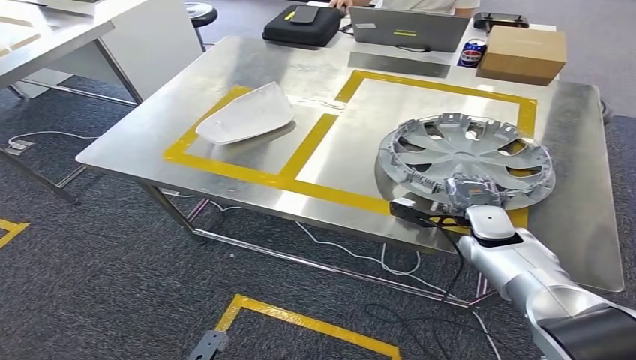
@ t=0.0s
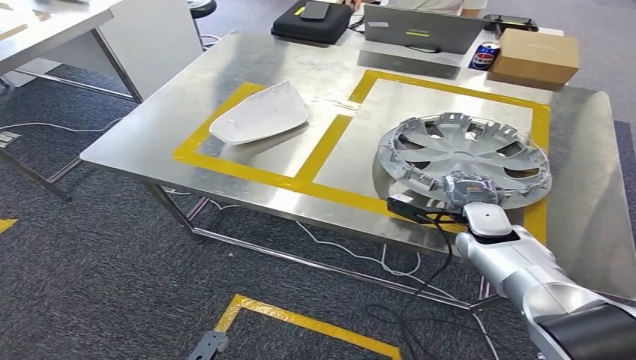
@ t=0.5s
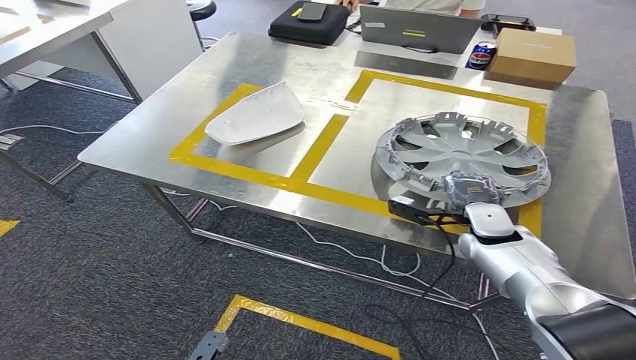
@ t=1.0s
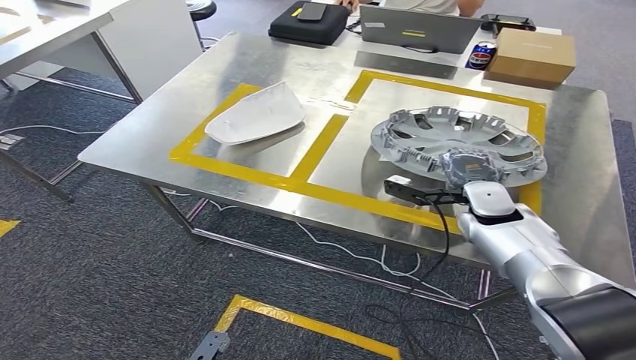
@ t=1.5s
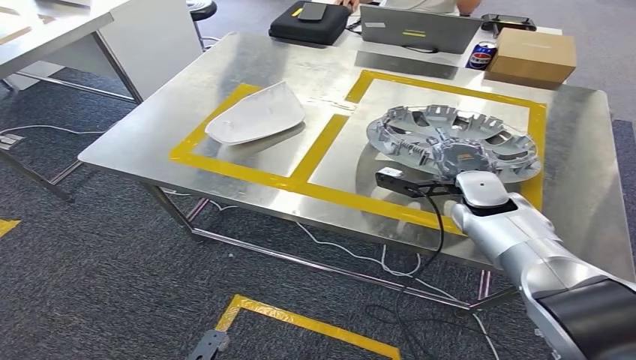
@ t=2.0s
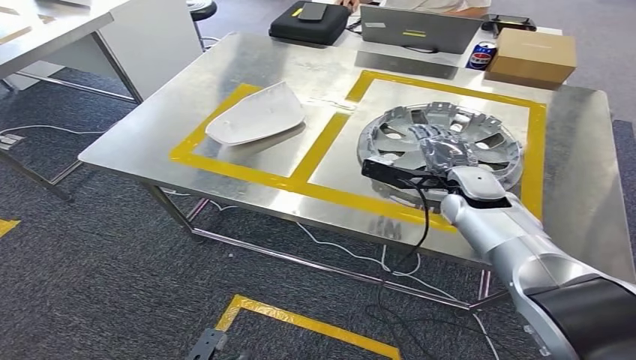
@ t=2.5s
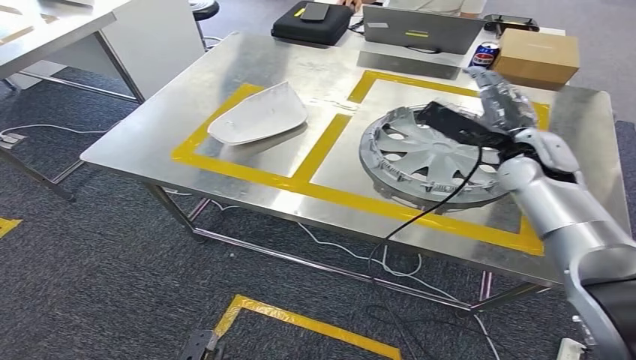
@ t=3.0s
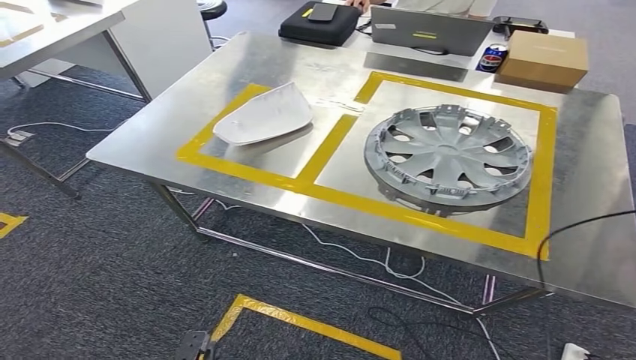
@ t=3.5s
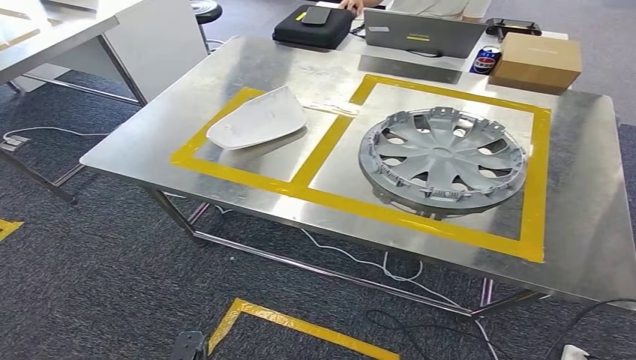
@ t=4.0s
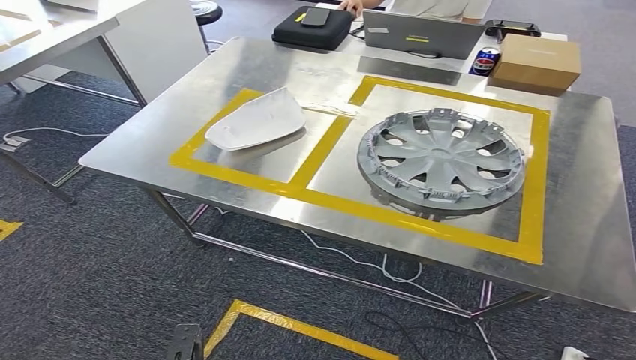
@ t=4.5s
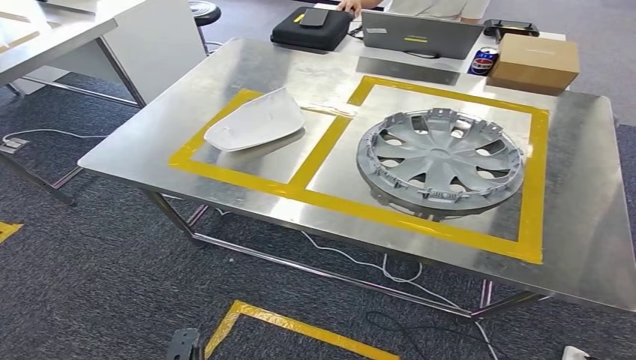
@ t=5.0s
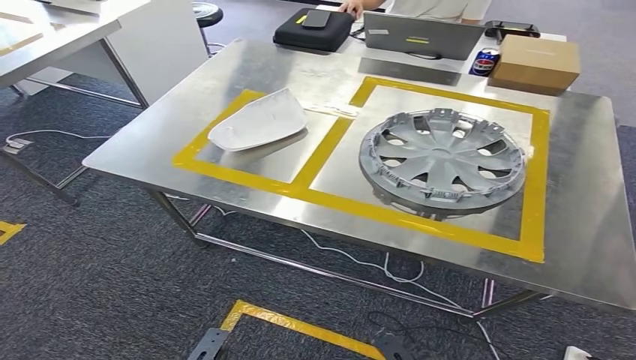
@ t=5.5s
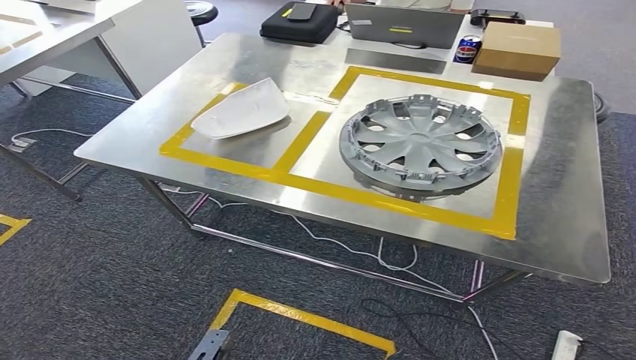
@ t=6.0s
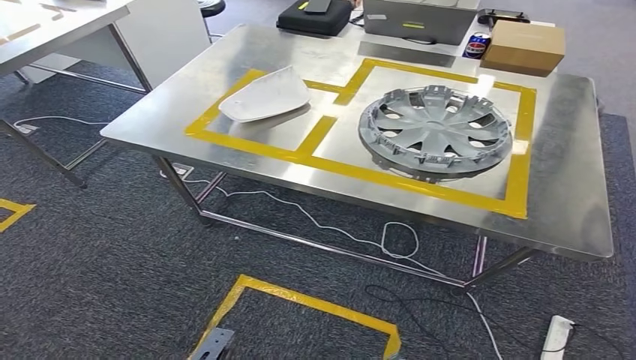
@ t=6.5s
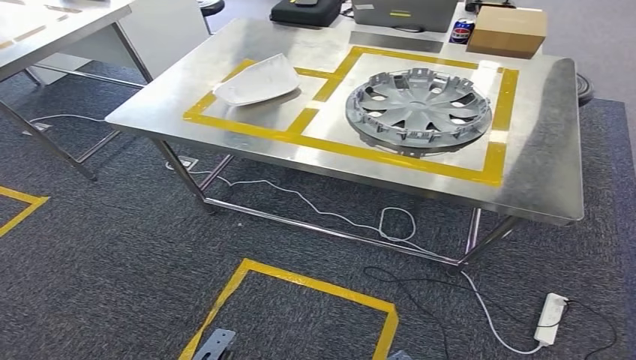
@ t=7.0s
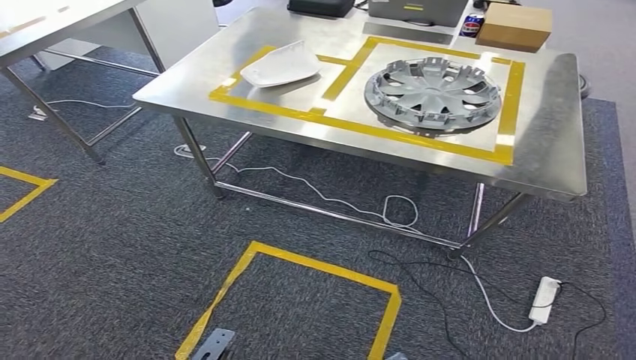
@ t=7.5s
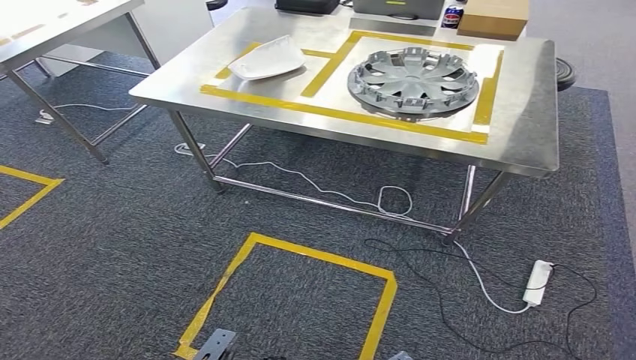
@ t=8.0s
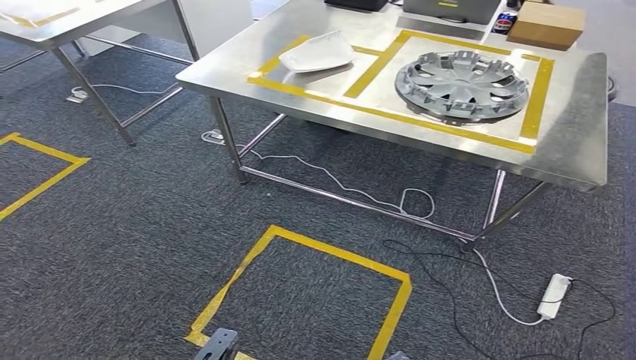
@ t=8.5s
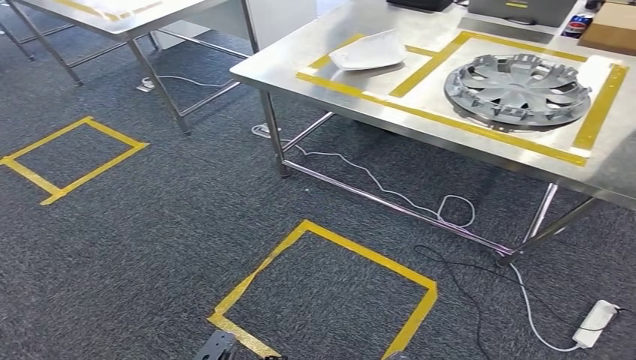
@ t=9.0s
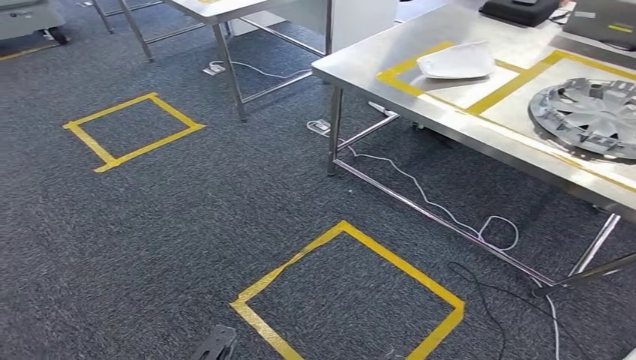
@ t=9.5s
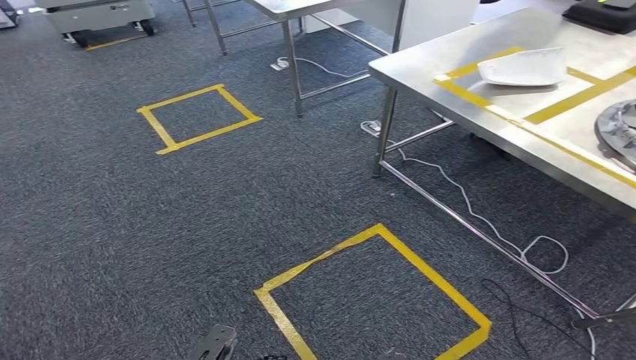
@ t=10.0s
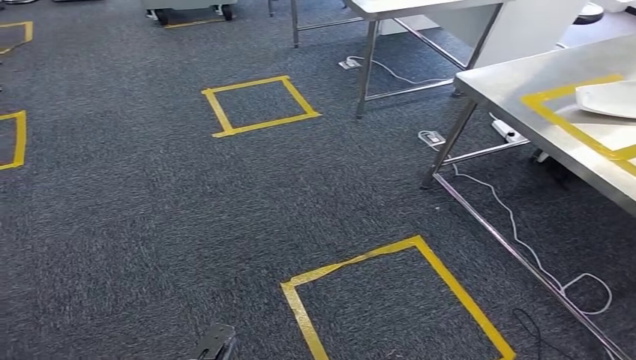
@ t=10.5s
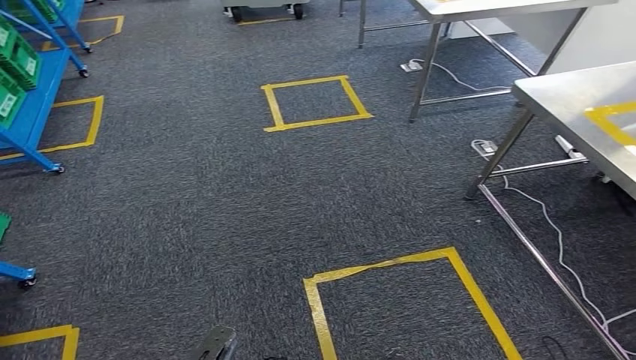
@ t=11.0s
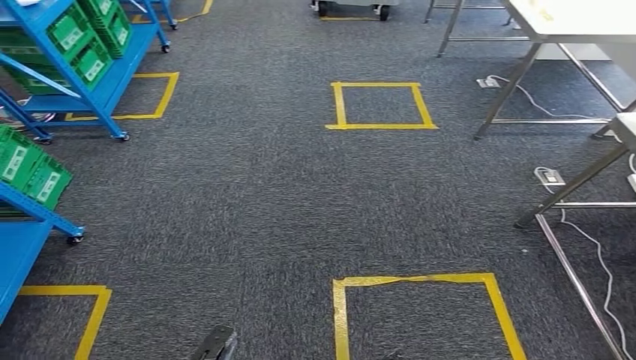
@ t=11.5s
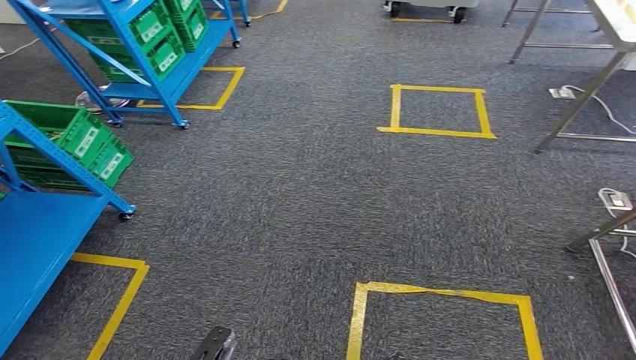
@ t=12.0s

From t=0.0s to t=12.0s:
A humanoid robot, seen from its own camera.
Step, from t=0.0s to t=3.5s: Insert the small parts into the corresponding holes on the workbench.

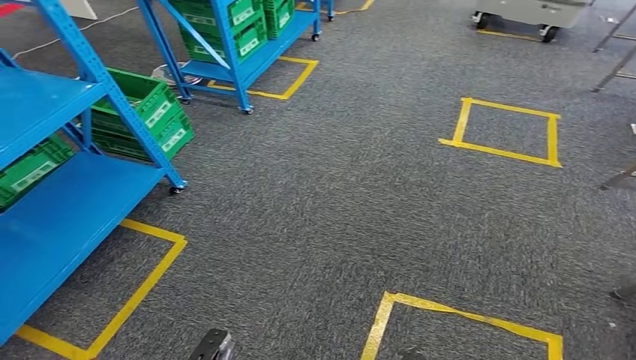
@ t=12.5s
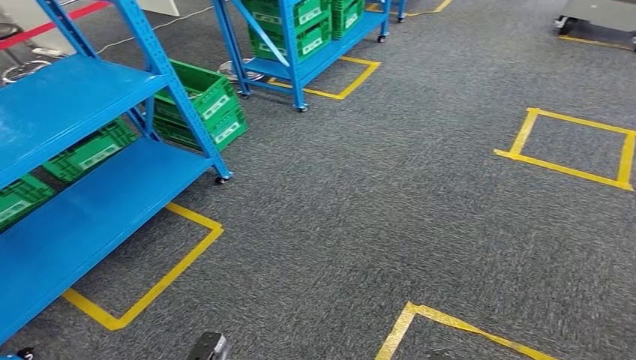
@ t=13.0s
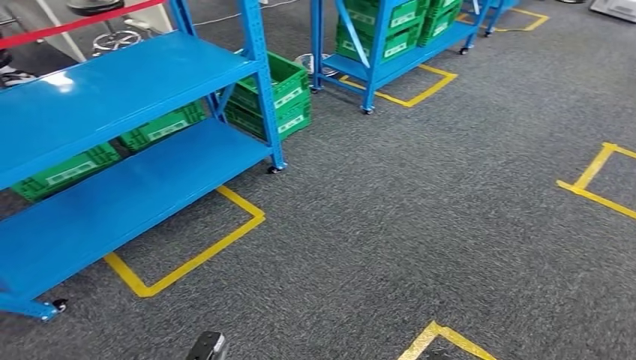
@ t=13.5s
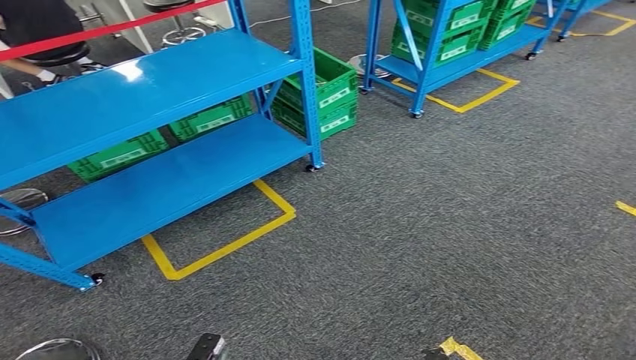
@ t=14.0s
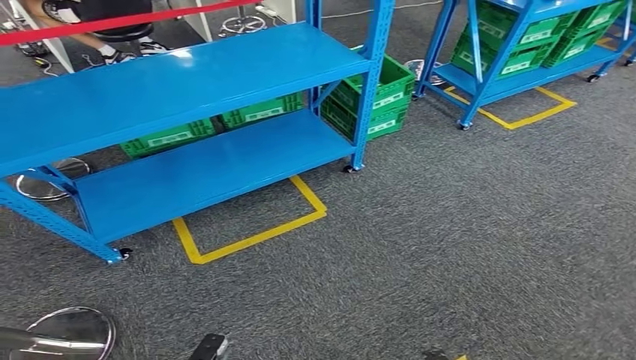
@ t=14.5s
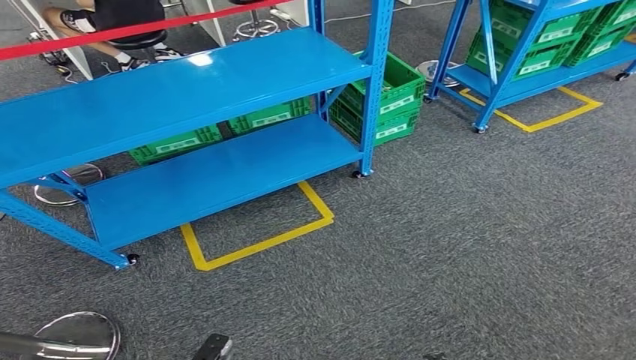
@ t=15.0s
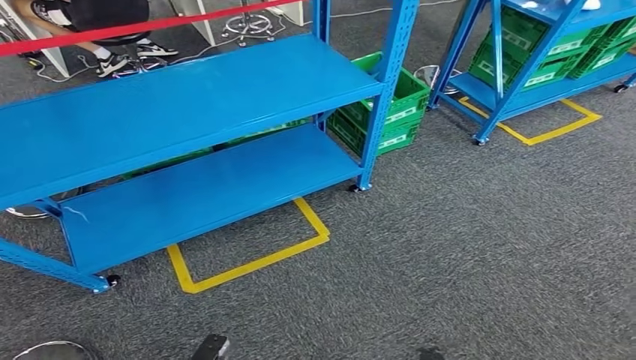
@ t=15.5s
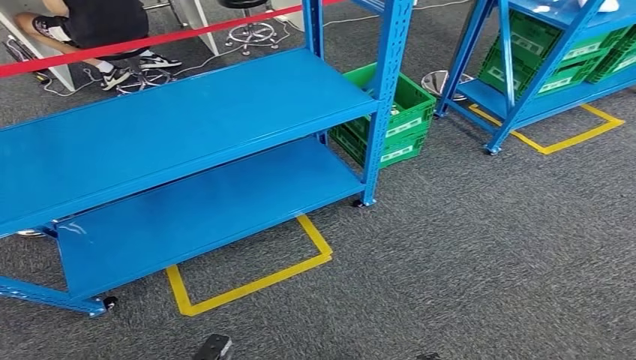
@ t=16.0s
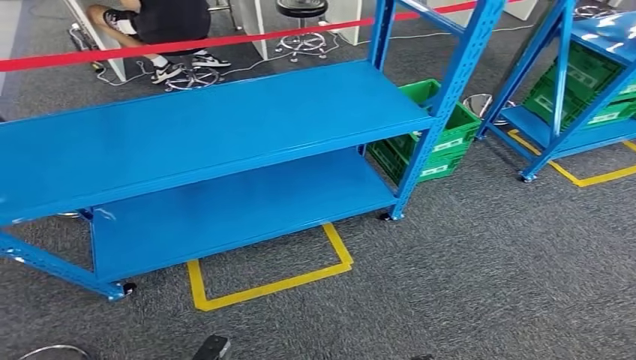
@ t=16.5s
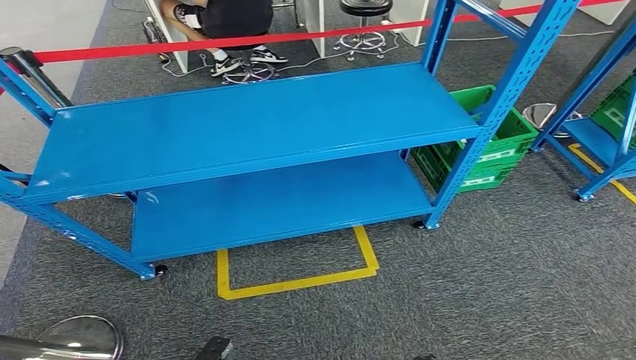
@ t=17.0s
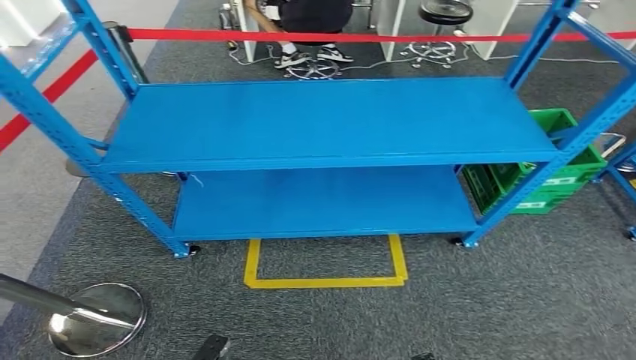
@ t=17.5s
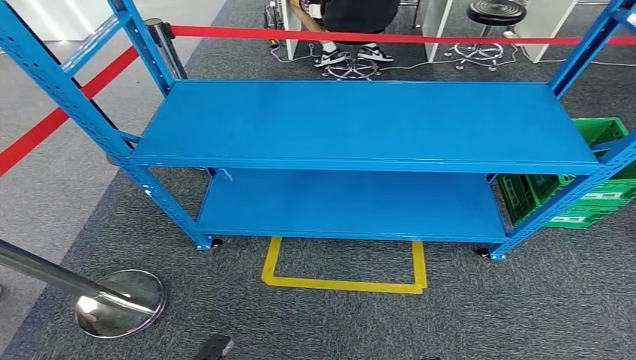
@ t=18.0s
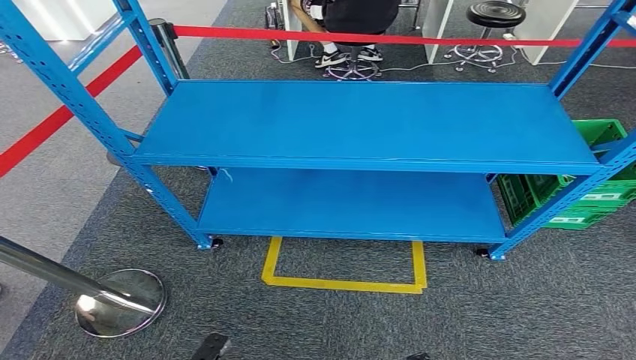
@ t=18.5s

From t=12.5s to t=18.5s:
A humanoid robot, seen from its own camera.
Step, from t=12.5s to t=18.5s: Move to the initial position of the workbench.

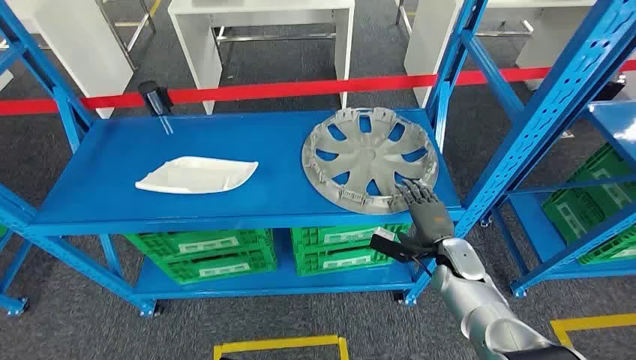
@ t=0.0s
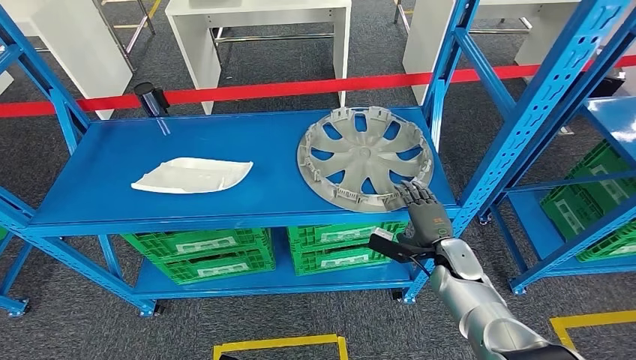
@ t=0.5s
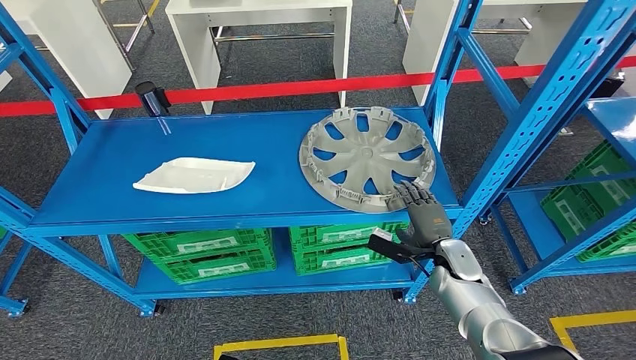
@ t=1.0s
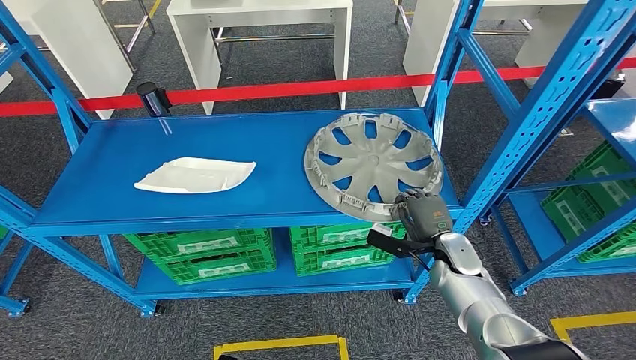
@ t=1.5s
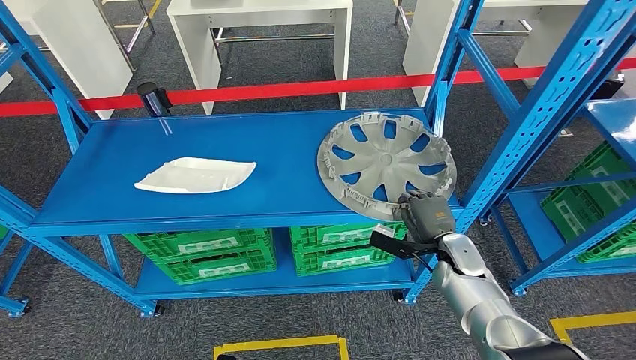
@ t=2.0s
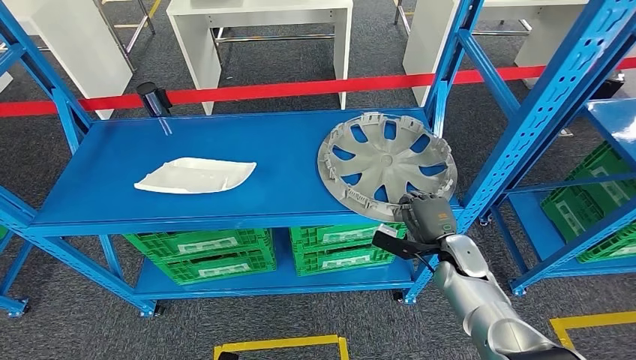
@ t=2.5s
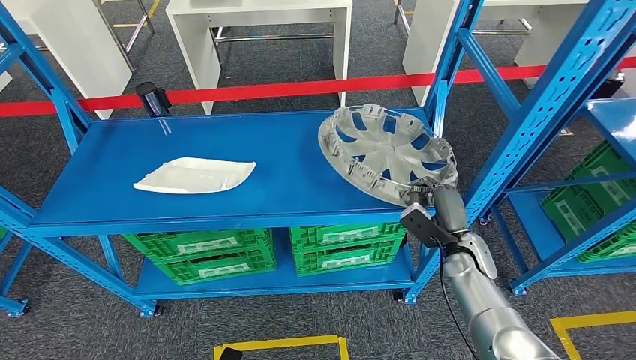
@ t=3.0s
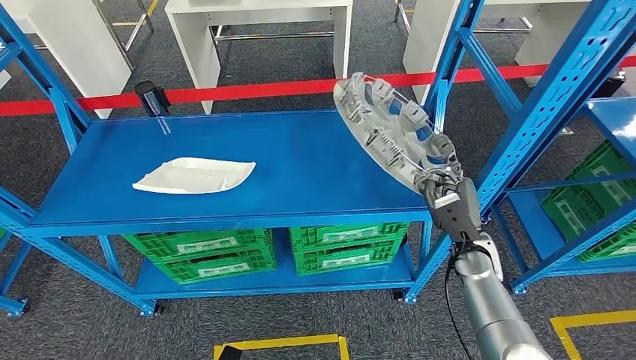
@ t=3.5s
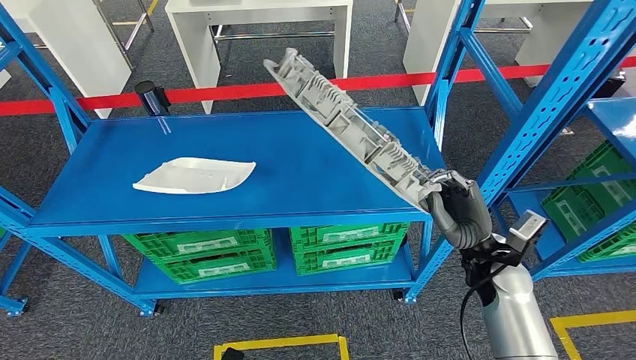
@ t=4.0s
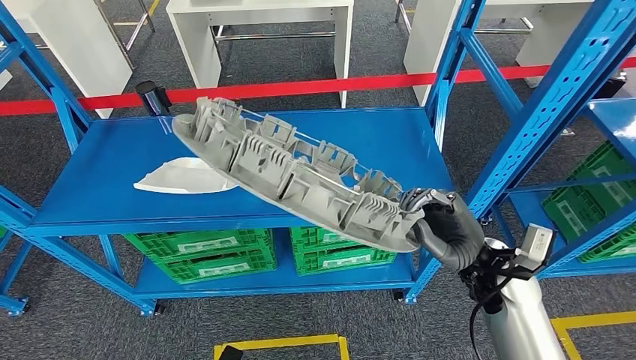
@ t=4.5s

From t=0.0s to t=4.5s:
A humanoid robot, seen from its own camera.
Step, from t=0.0s to t=4.5s: Take small components from the rack.
